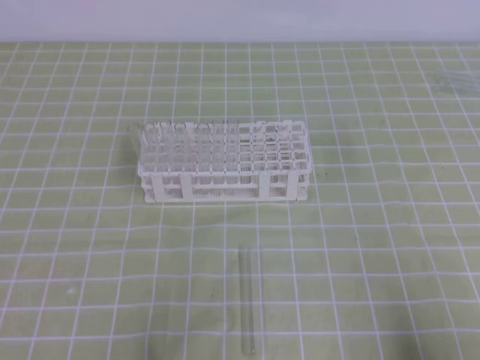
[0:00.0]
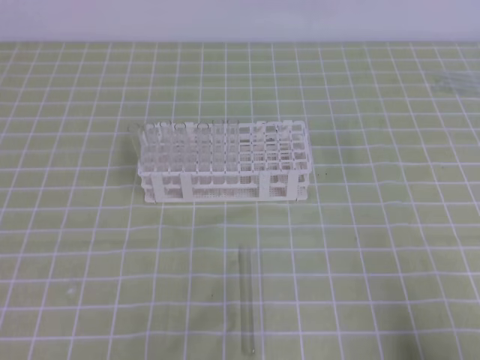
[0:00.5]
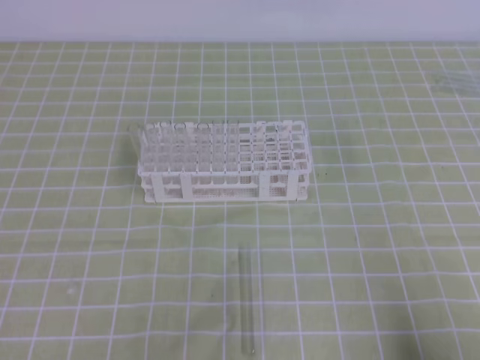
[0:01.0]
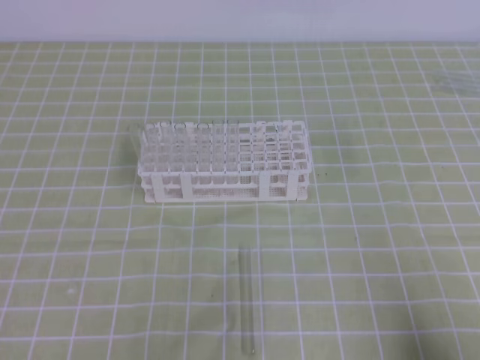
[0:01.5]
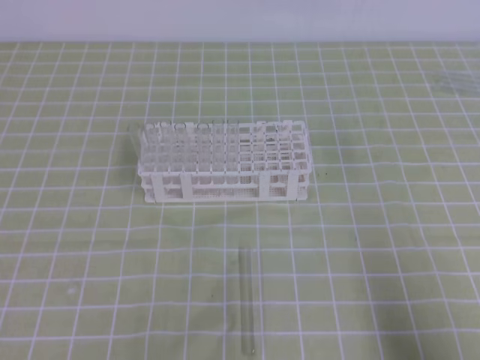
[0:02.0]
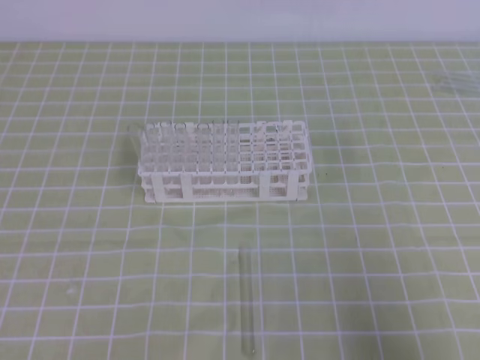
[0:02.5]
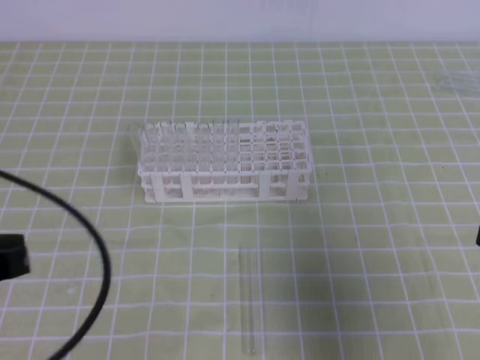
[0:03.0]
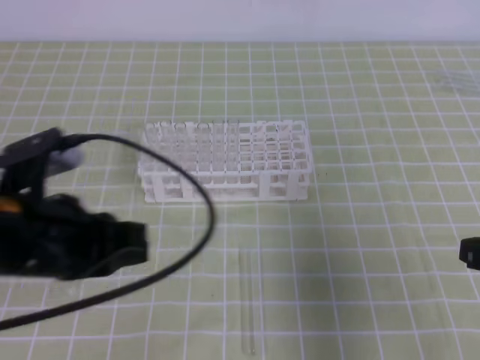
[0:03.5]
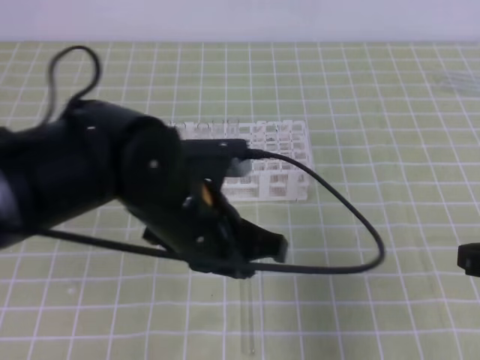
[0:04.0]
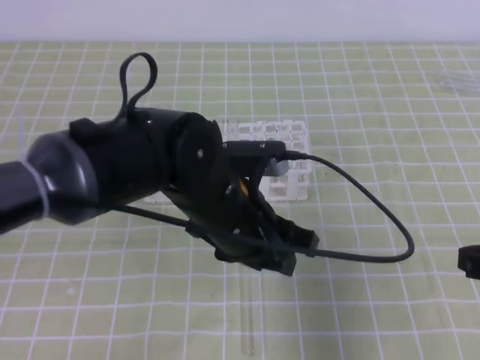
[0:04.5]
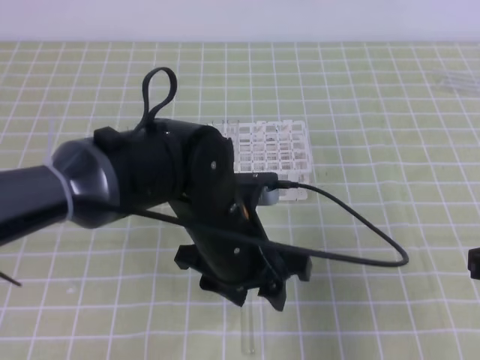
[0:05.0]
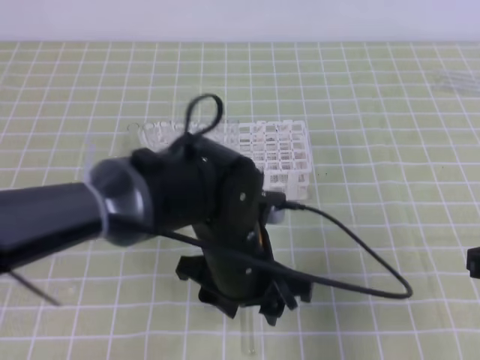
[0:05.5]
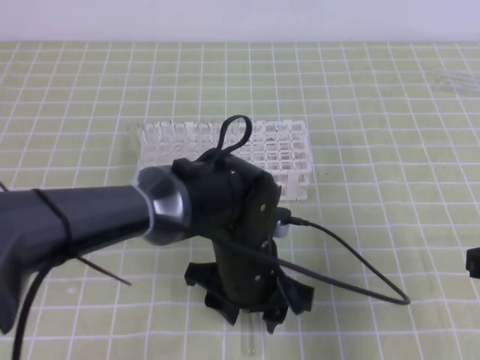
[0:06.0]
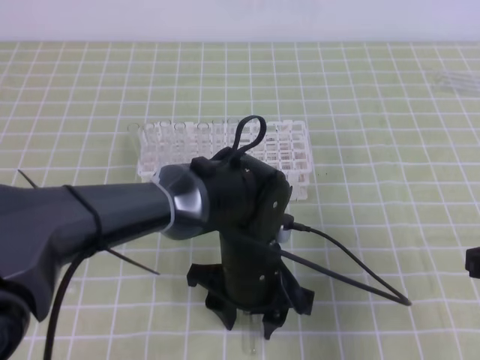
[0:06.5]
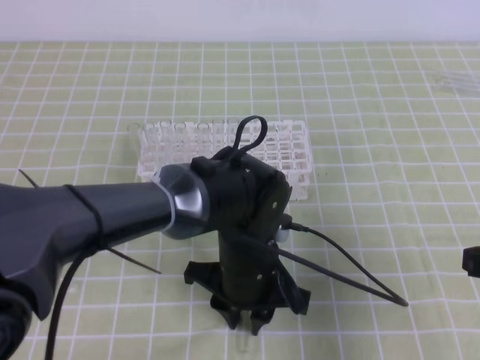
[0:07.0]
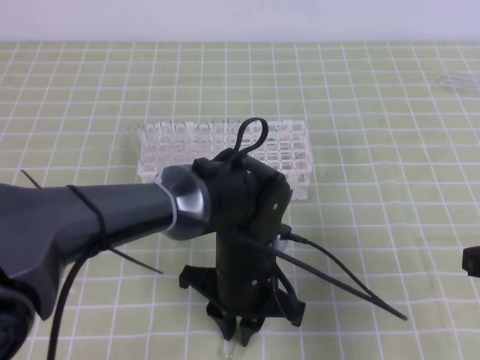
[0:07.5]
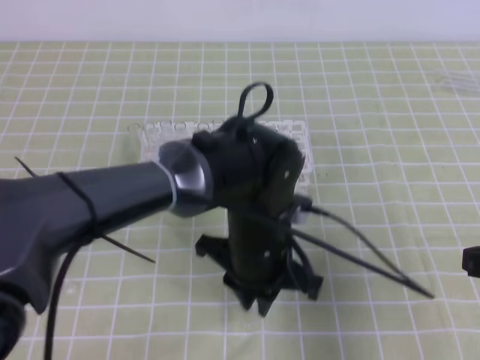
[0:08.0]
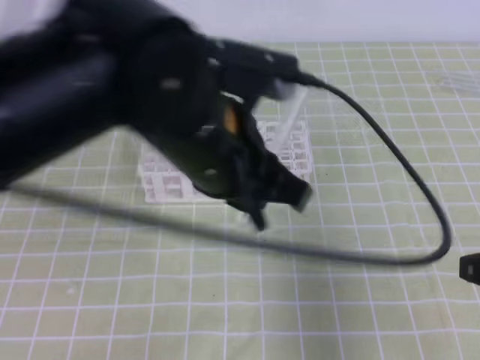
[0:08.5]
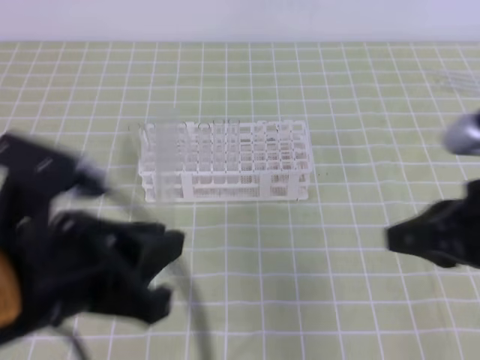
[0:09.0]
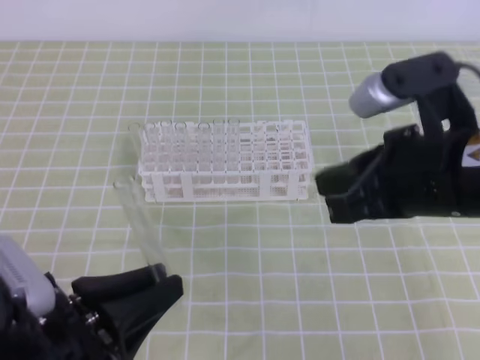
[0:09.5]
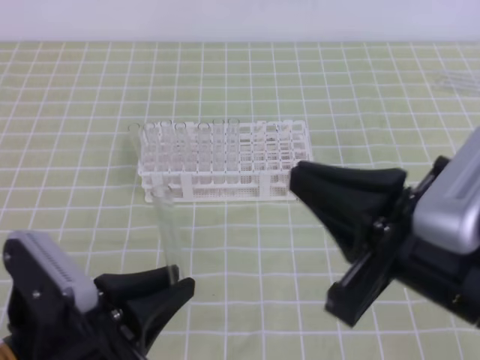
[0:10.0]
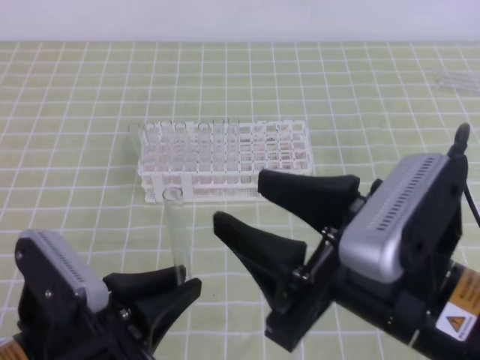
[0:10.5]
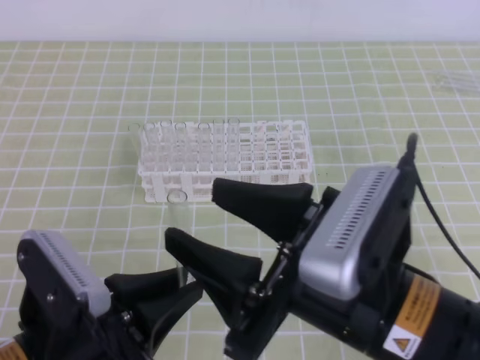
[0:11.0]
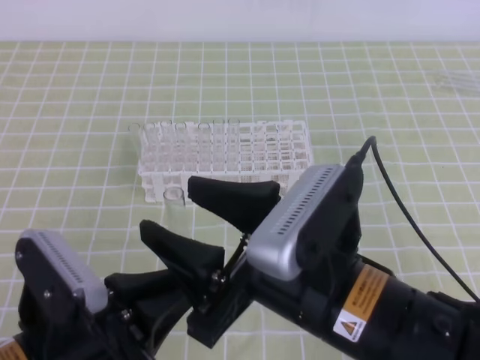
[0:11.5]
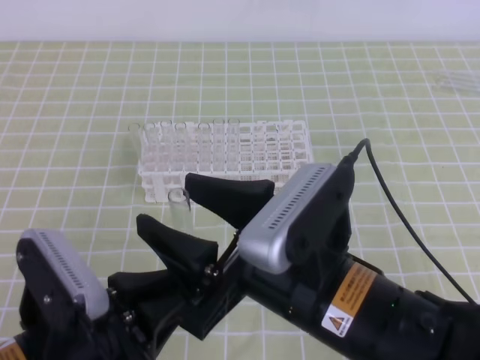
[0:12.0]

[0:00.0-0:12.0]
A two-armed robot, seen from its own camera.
0:02.0 to 0:04.0: The left gripper is displaced to the right and forward by approximately 25 cm. The right gripper moves forward and upward, roughly 10 cm.
0:04.0 to 0:06.0: The left gripper is displaced downward and to the right by about 10 cm, and opens its fingers.
0:06.0 to 0:08.0: The left gripper closes.
0:08.0 to 0:10.0: The left gripper heads to the left and backward, covering about 20 cm. The right gripper heads to the left and upward, covering some 15 cm.
0:10.0 to 0:12.0: The right gripper goes roughly 10 cm to the left, and opens up.

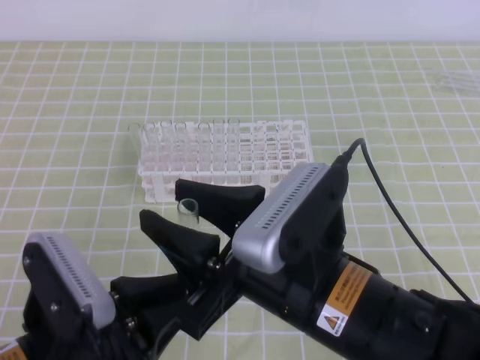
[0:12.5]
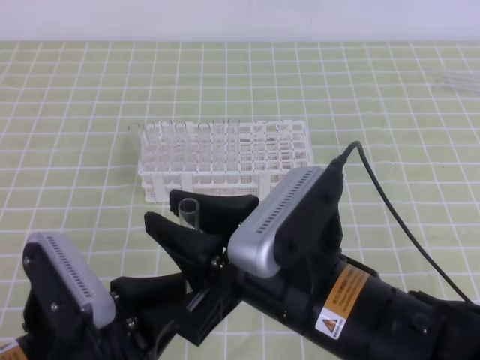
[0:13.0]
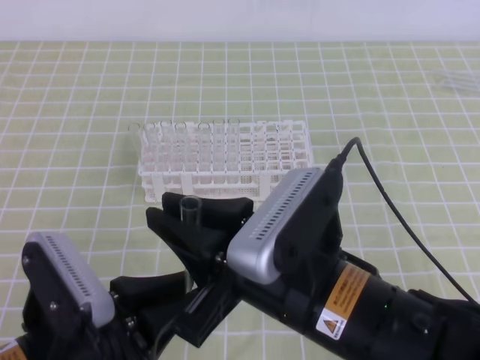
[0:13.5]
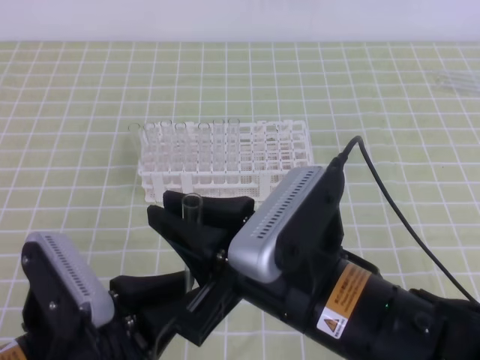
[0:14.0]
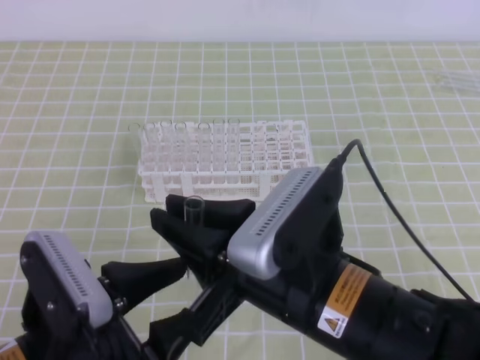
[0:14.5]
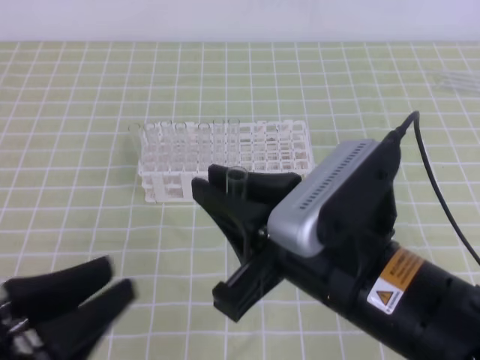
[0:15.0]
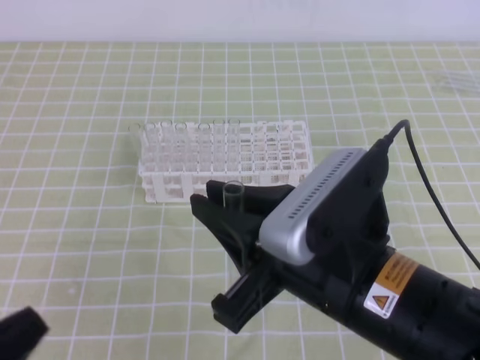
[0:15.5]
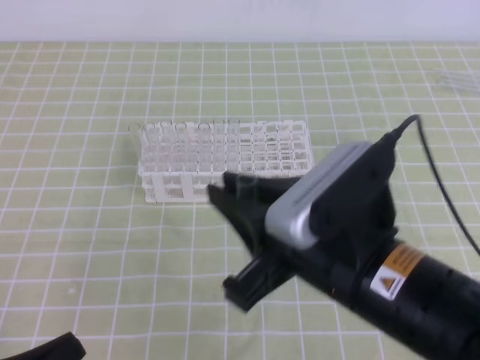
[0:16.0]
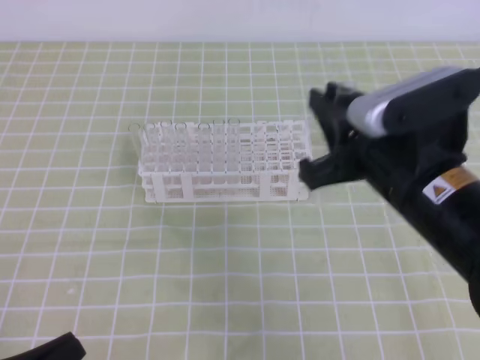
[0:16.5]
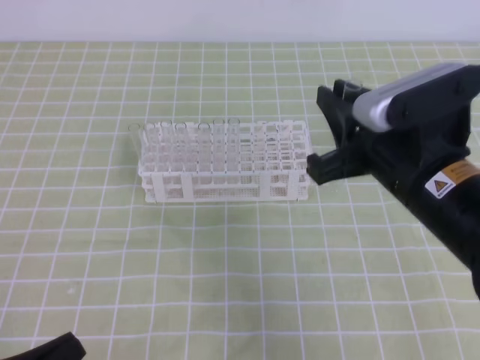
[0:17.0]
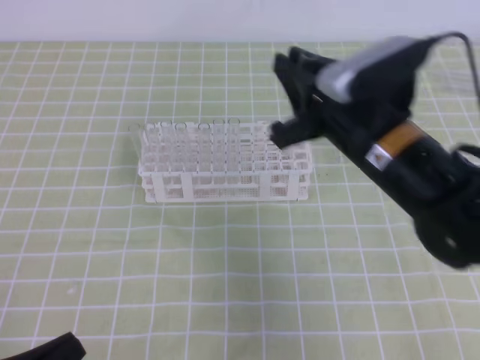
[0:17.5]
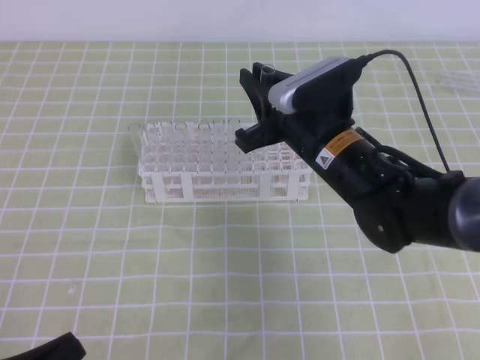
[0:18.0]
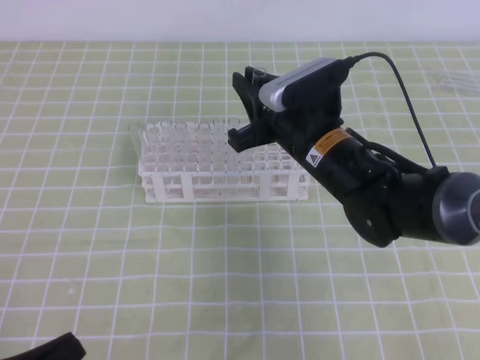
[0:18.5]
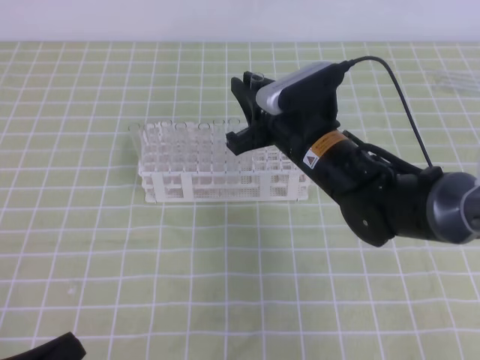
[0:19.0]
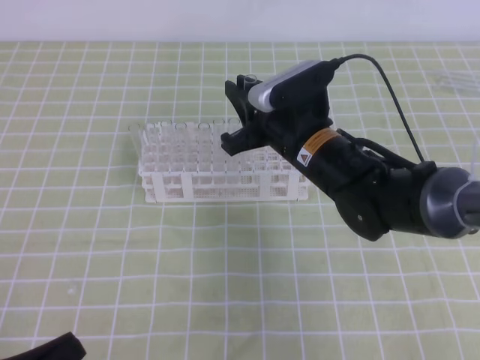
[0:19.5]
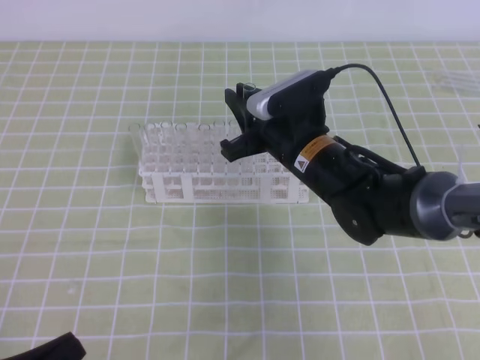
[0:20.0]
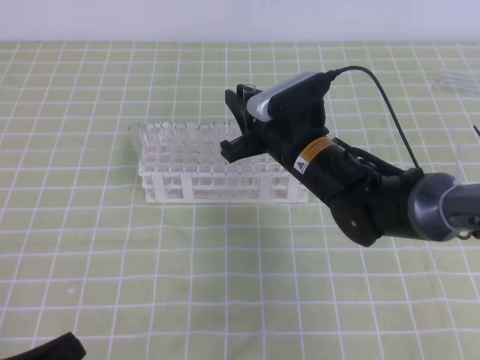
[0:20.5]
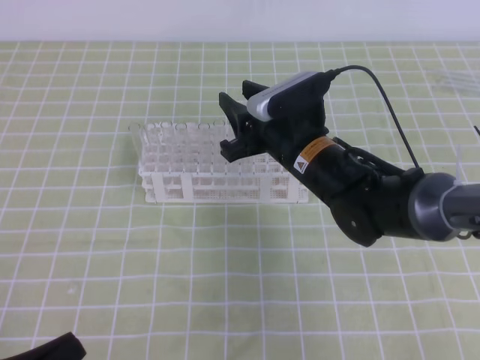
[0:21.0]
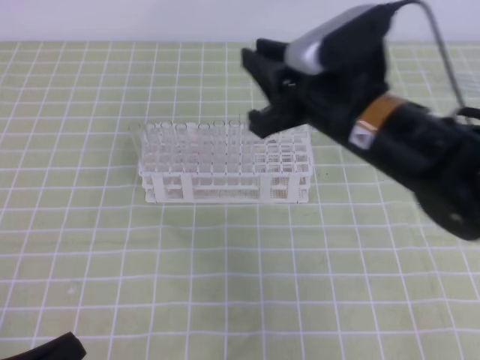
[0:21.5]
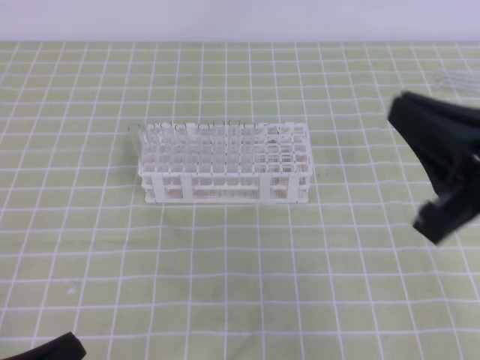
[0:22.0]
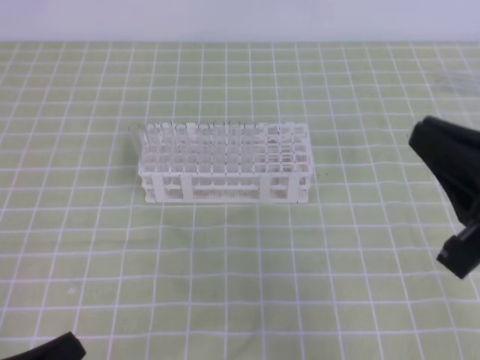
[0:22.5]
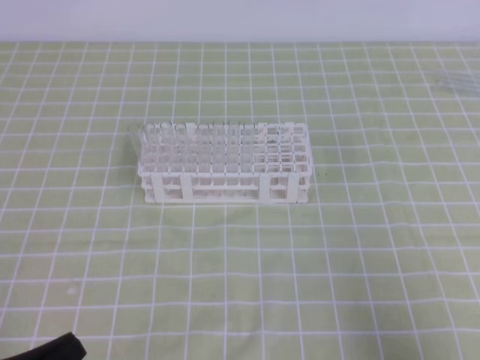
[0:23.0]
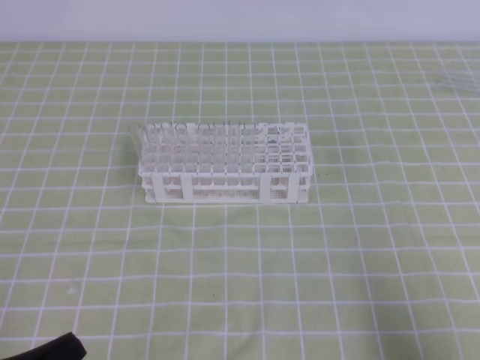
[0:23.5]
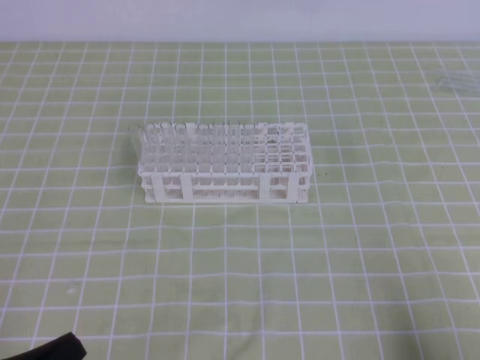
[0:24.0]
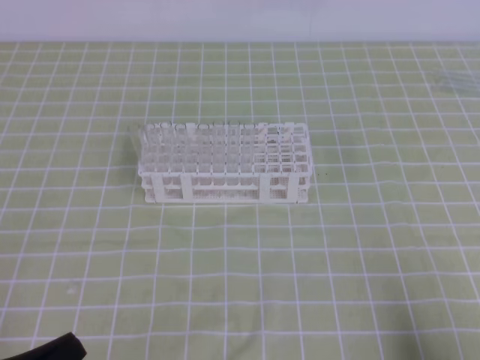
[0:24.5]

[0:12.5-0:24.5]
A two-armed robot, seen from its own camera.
0:12.5 to 0:14.5: The right gripper closes up; the left gripper opens its fingers.
0:14.5 to 0:16.5: The right gripper travels to the right and forward by about 10 cm; the left gripper heads to the left and backward, covering approximately 10 cm, and closes up.
0:16.5 to 0:18.5: The right gripper goes about 15 cm forward, downward and to the left.
0:18.5 to 0:20.5: The grippers move only a little.
0:20.5 to 0:22.5: The right gripper moves backward, to the right and upward, about 30 cm, and opens and closes again.
0:22.5 to 0:24.5: The right gripper is displaced downward, to the right and backward by some 20 cm.

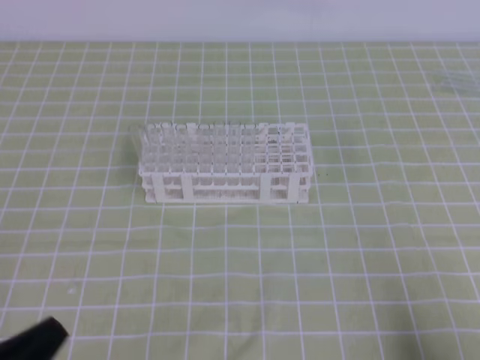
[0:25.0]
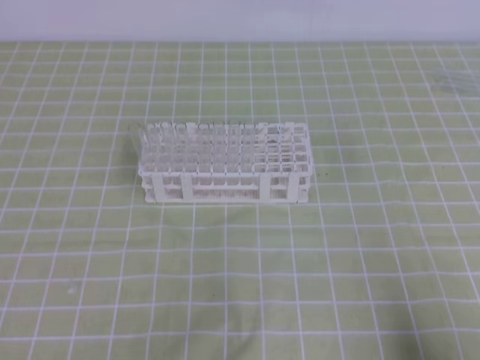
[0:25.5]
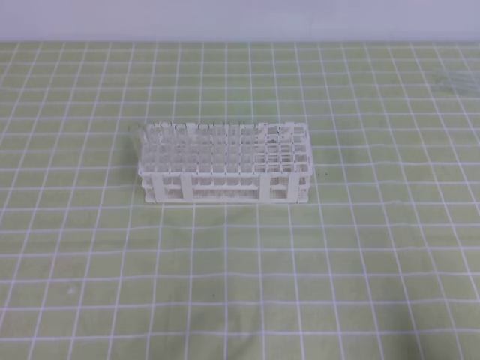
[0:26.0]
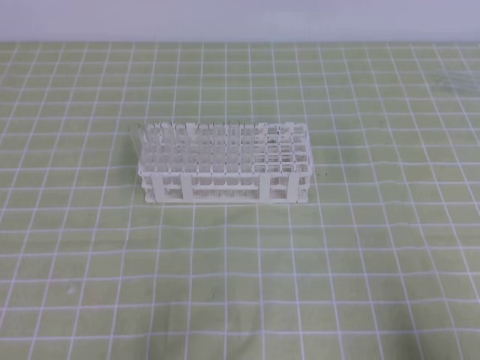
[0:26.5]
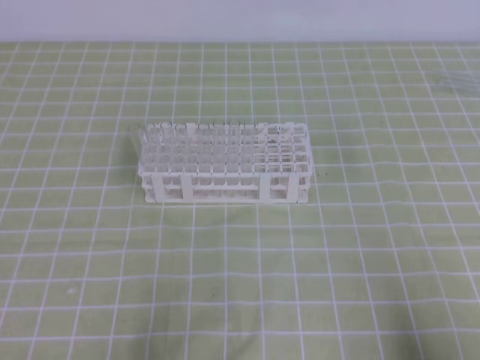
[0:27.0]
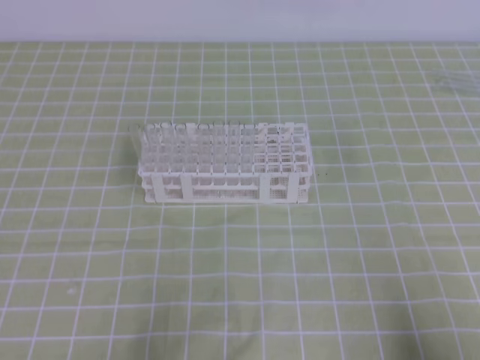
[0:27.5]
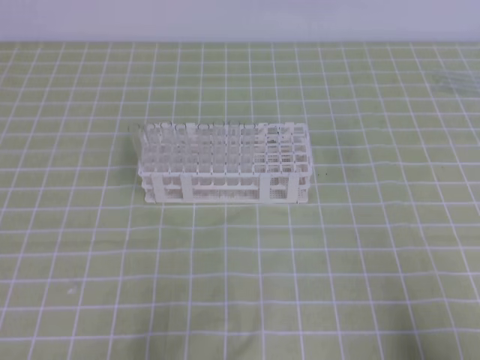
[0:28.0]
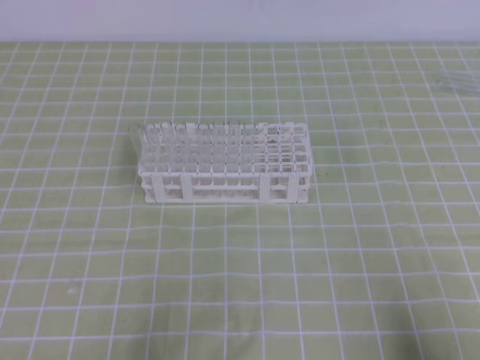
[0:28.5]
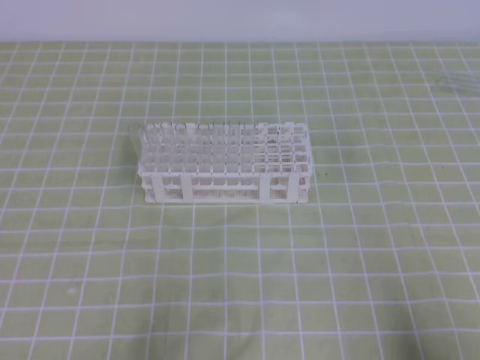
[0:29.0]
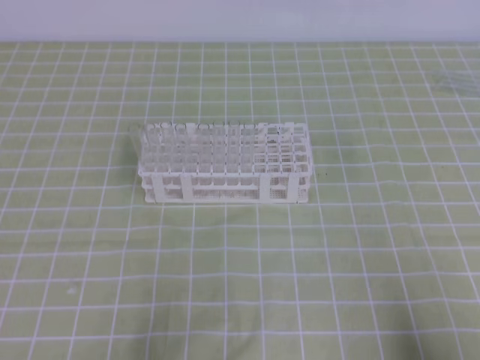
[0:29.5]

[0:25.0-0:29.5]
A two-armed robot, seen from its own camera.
0:27.0 to 0:29.5: Both grippers stay put.
